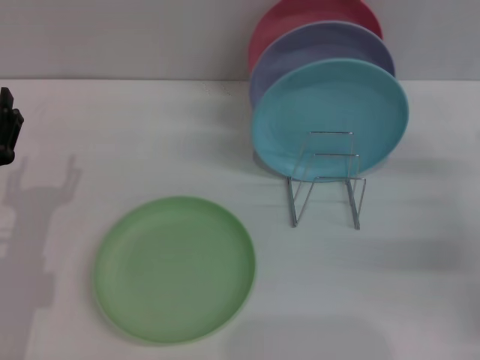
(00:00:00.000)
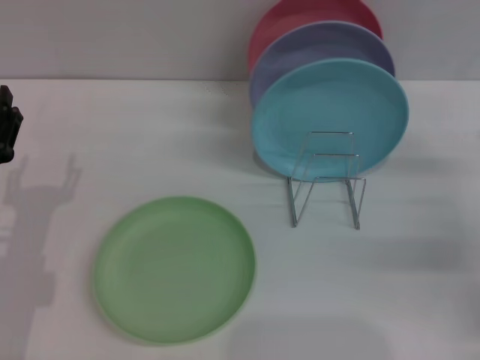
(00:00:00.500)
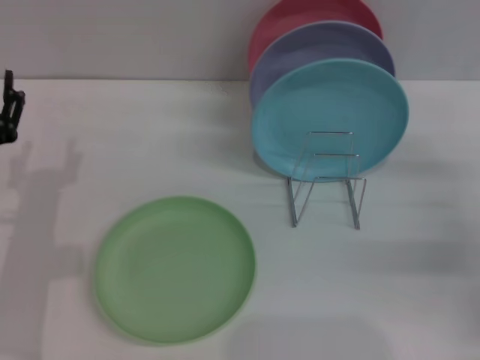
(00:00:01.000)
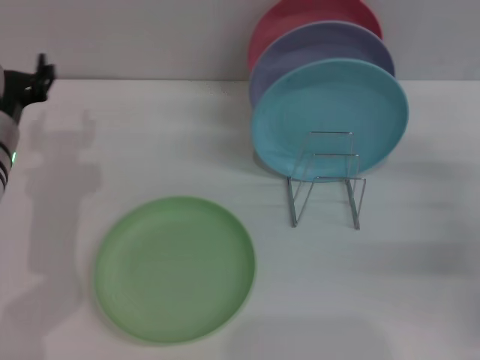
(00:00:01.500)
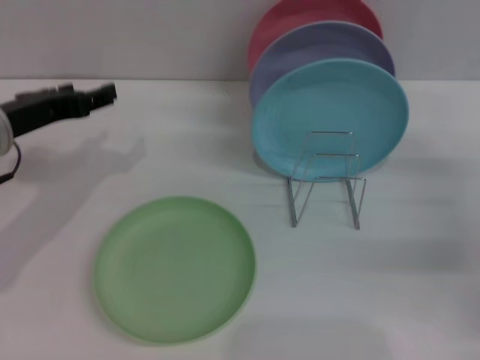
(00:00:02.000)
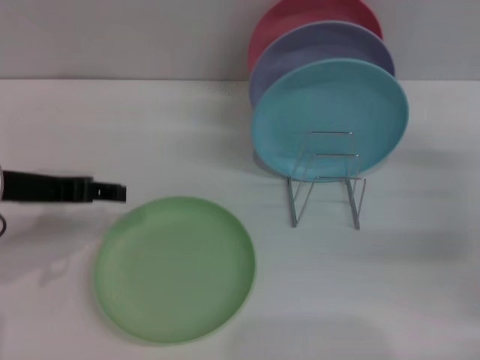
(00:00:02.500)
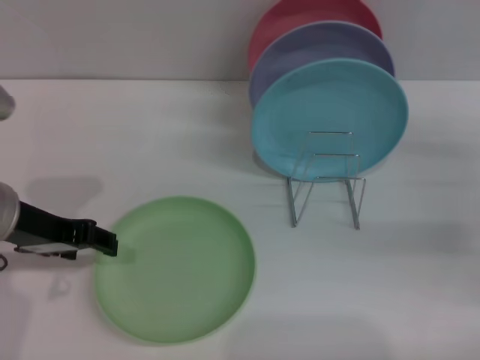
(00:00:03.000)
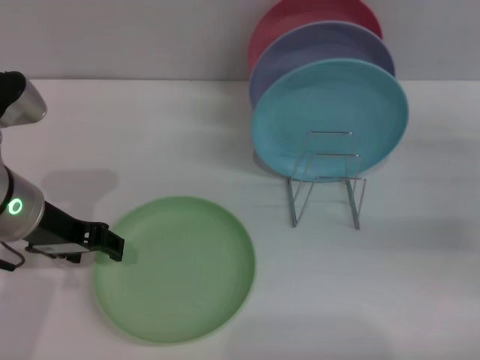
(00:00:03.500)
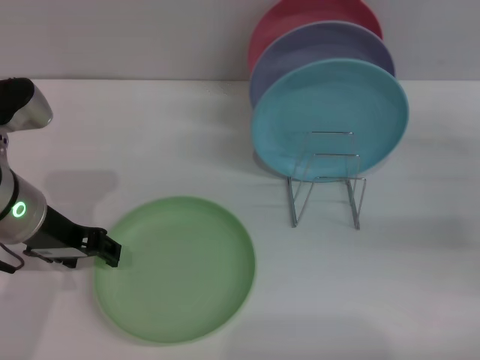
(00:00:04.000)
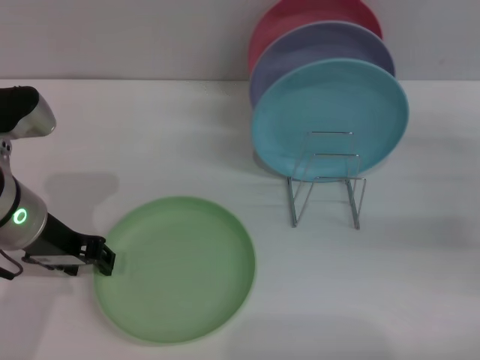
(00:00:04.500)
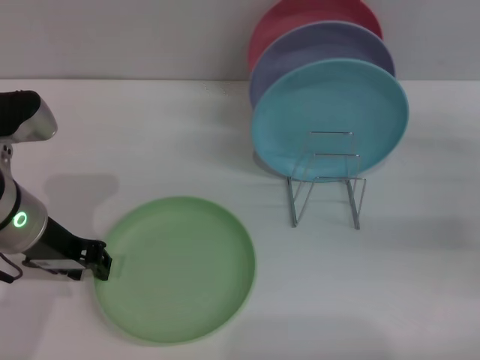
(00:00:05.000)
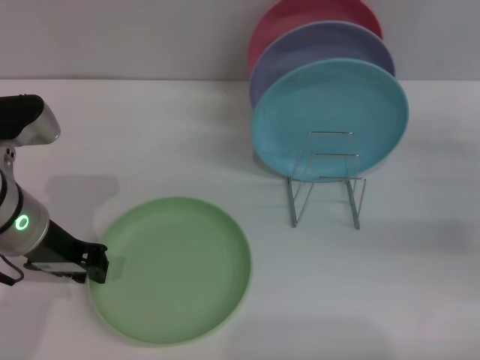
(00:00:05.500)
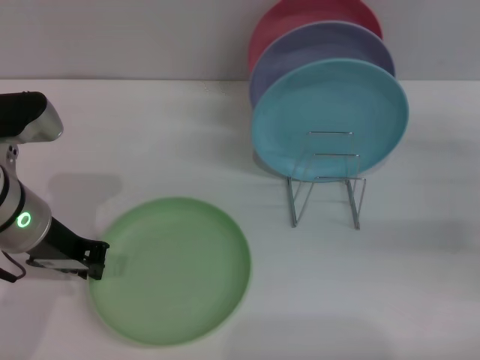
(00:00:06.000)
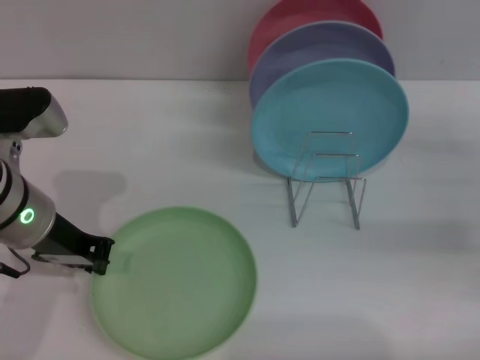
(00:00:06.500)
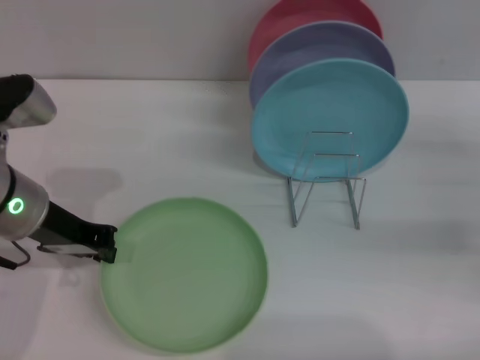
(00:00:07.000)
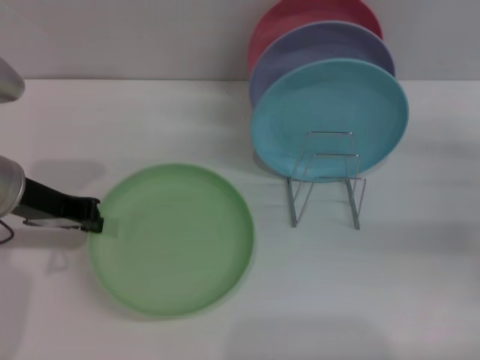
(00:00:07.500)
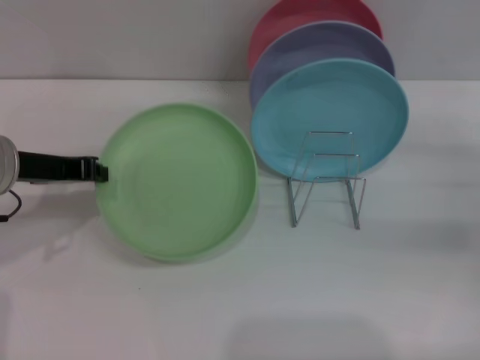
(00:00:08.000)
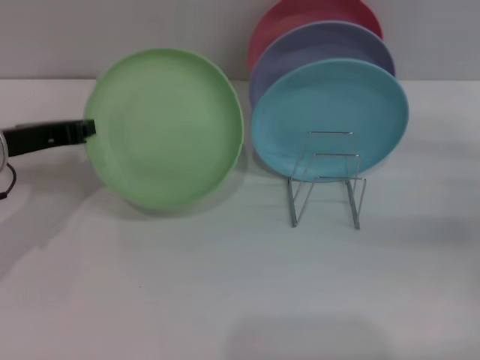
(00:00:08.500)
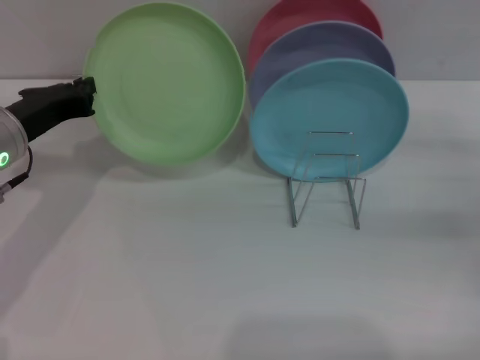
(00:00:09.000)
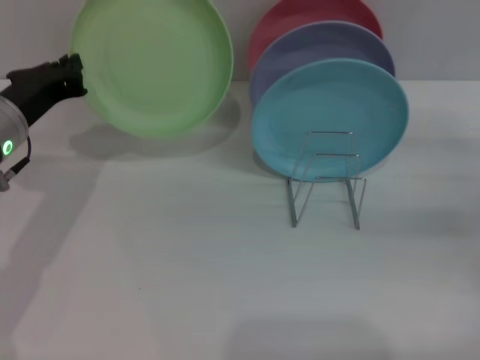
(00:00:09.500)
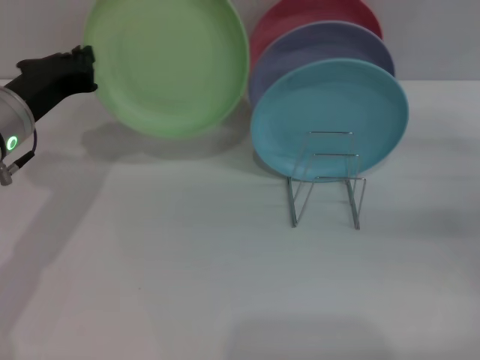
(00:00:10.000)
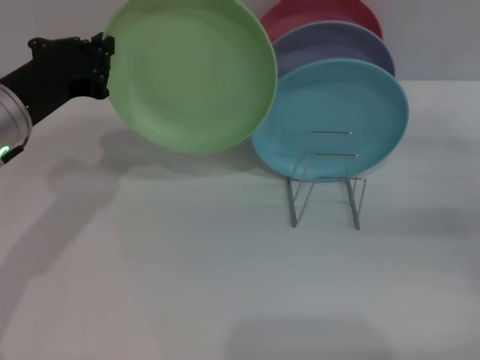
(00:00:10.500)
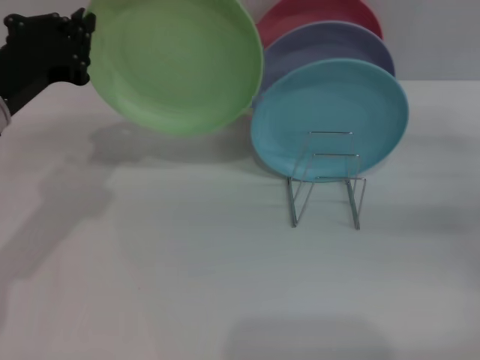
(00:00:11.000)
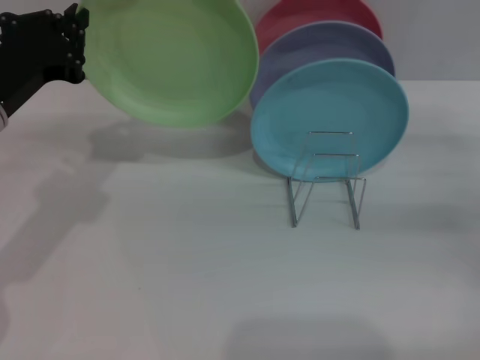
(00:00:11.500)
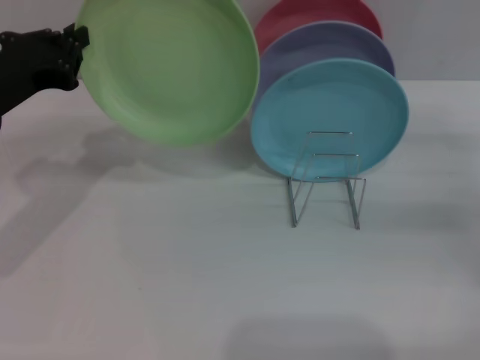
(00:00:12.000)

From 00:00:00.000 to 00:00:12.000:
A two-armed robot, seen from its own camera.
Task of the whole recording: Grip the plate with one hand, pass it to the other, then set it on the shelf.
Step, from 00:00:00.000 to 00:00:09.000: Pick up the plate with the left gripper.
From 00:00:00.000 to 00:00:02.000: The left gripper heads upward and forward, covering some 15 cm.
From 00:00:04.000 to 00:00:06.000: The left gripper closes.

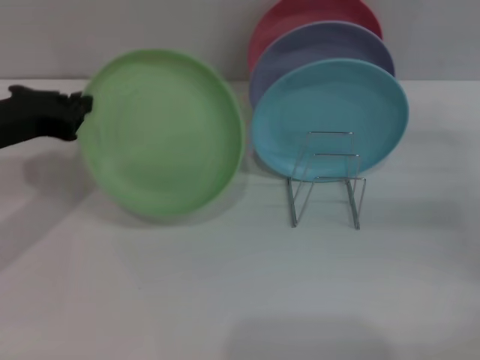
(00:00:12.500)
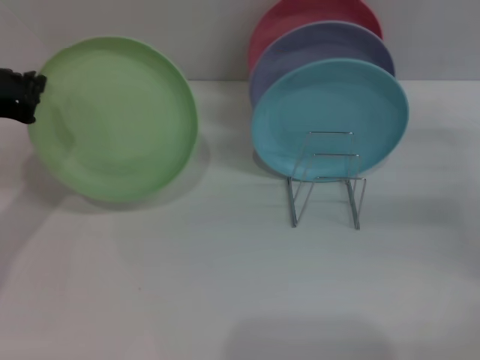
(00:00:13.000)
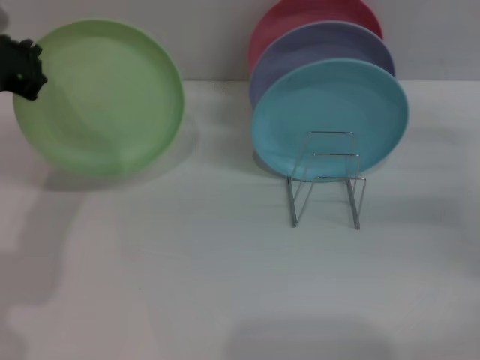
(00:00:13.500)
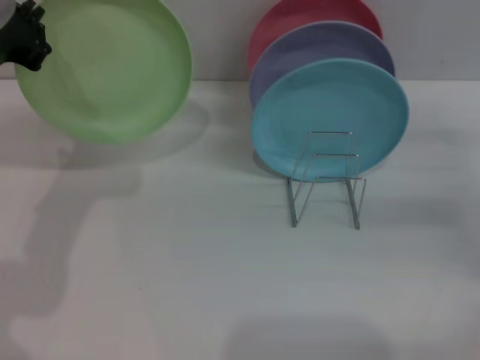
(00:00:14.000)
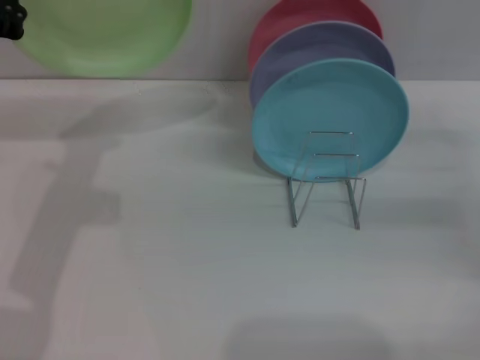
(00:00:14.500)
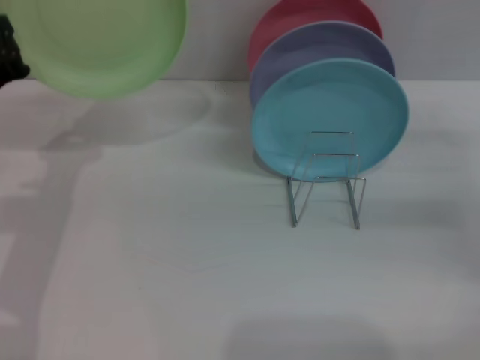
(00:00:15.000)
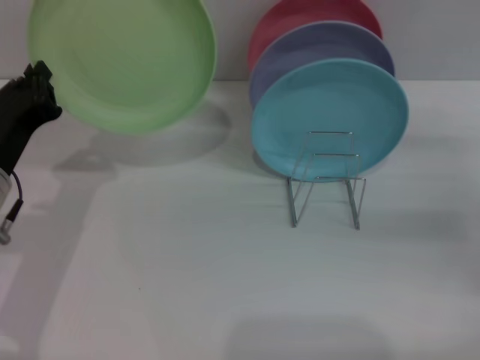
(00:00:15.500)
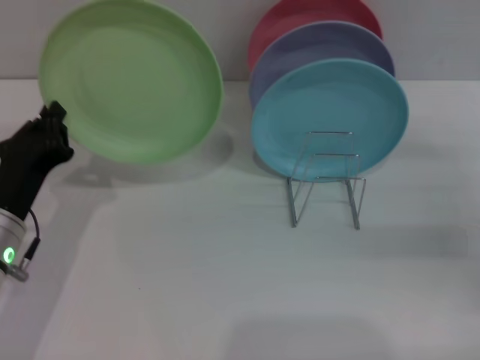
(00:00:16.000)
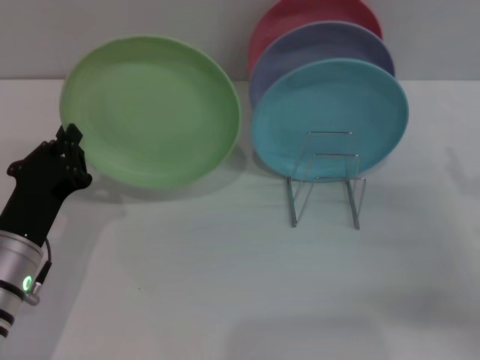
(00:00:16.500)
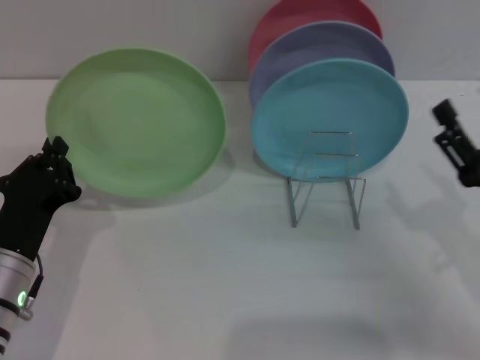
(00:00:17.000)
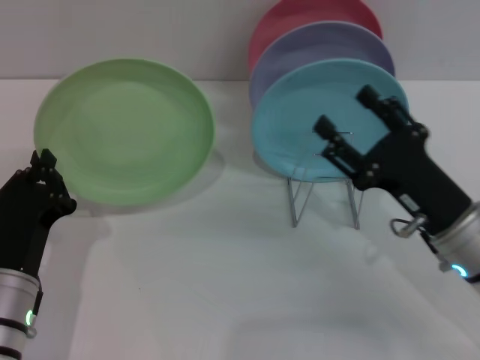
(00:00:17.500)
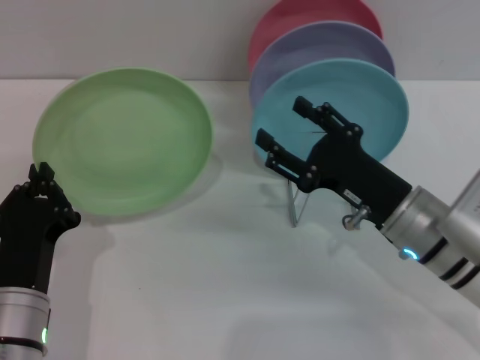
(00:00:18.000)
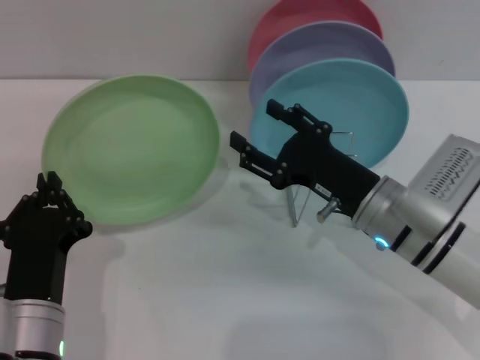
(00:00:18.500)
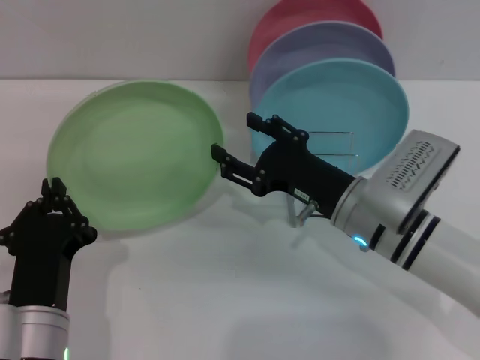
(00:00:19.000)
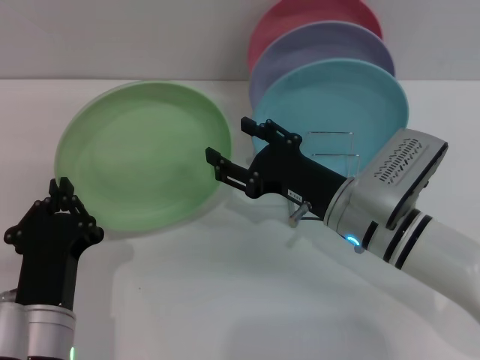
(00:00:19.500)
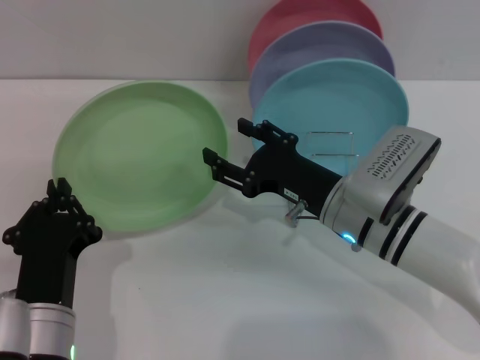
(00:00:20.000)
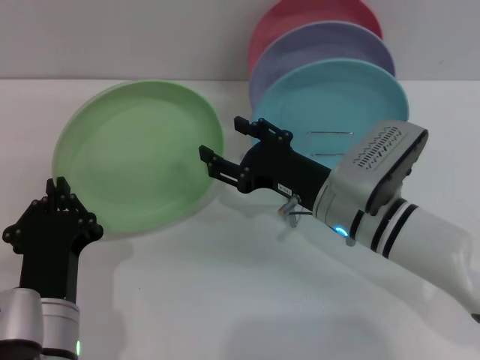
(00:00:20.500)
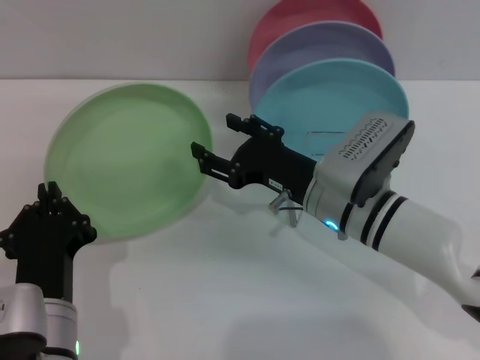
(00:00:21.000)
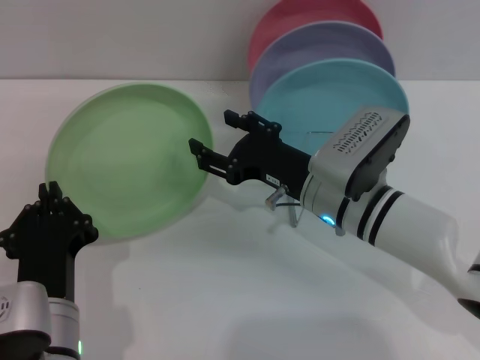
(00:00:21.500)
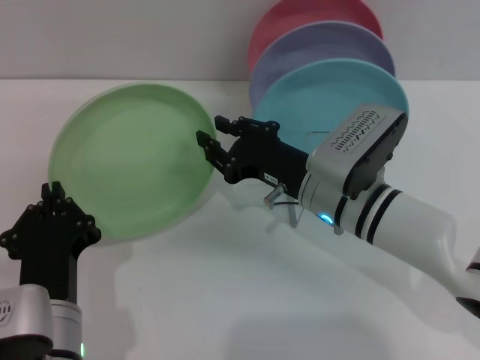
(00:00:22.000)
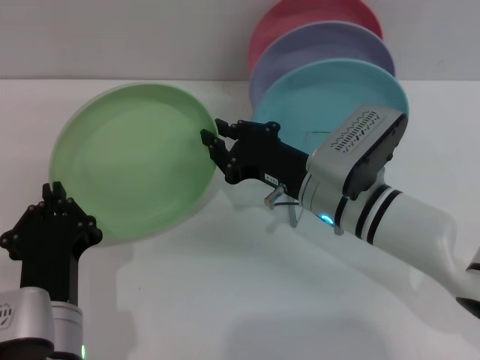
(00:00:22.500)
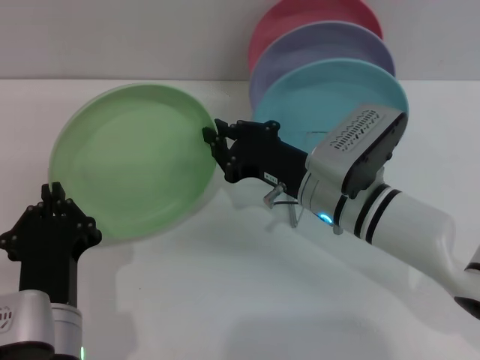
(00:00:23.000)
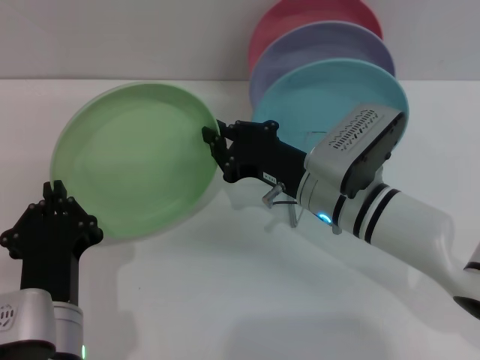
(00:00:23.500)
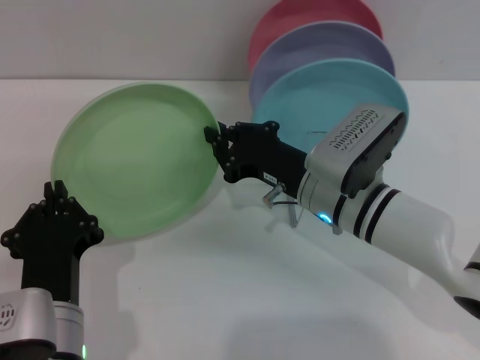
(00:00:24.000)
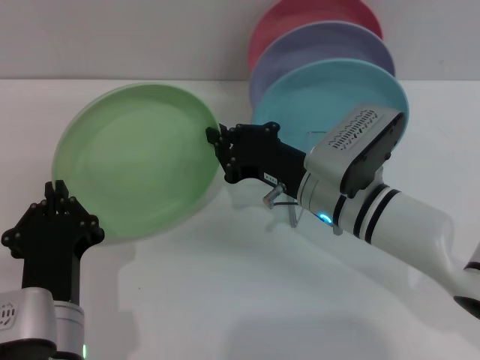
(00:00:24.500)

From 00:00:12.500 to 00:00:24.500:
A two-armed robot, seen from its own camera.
Task of the whole recording: Grip the plate with one hand, pass it to the other, then set it on the shelf.
From 00:00:12.500 to 00:00:14.500: The left gripper ends up roughly 5 cm from where it was.
From 00:00:14.500 to 00:00:16.500: The left gripper is displaced downward by approximately 15 cm; the right gripper goes roughly 10 cm backward.
From 00:00:16.500 to 00:00:18.500: The left gripper travels backward by some 5 cm; the right gripper travels to the left by some 15 cm.
From 00:00:18.500 to 00:00:20.500: The grippers move only a little.
From 00:00:20.500 to 00:00:22.500: The right gripper closes.
From 00:00:22.500 to 00:00:24.500: Both grippers stay about where they are.

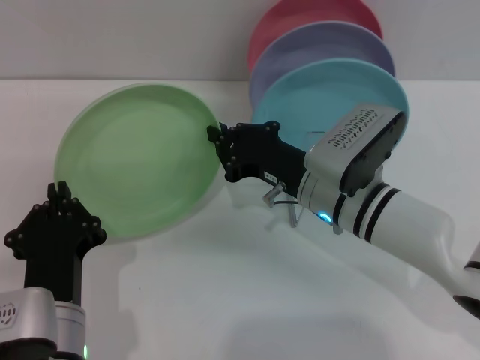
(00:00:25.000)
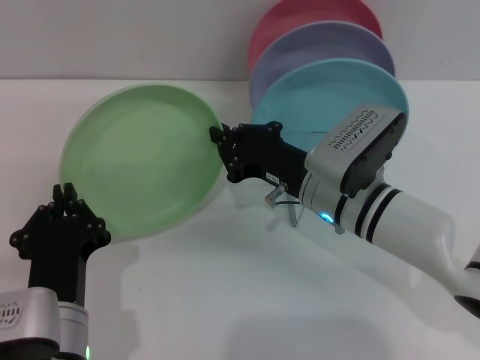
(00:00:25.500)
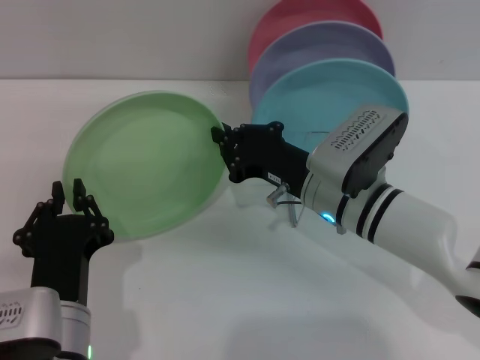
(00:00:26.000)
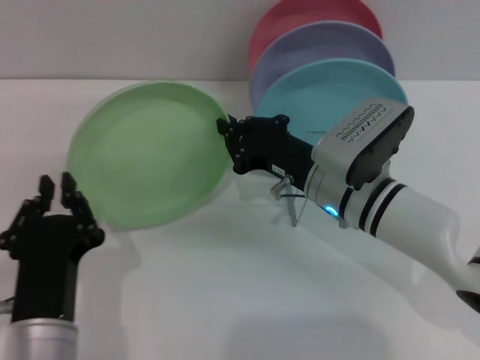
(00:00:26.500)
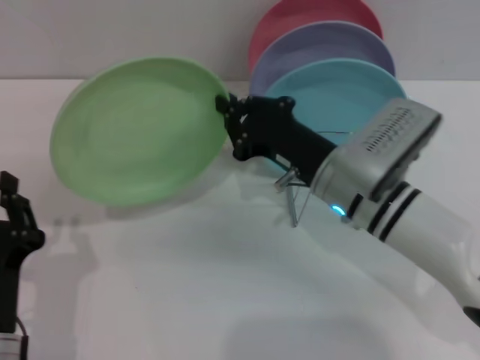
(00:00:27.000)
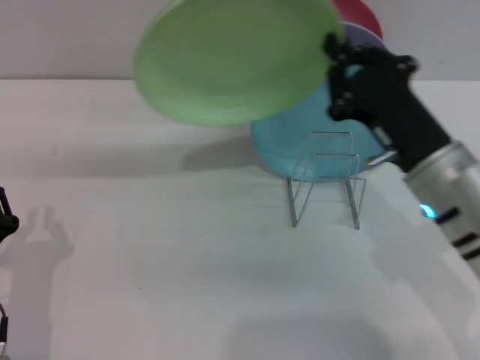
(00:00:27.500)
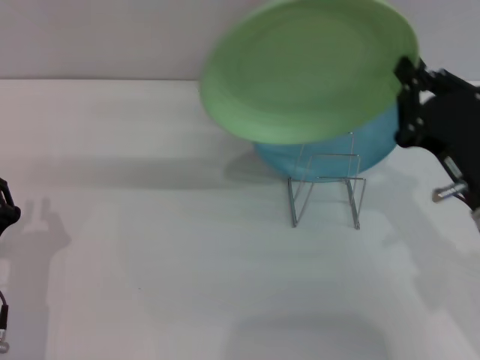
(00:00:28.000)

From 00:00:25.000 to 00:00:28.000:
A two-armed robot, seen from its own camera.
Task of the whole recording: Grip the plate with one hand, pass it to the other, then set it on the shelf.
Step, from 00:00:25.000 to 00:00:27.000: Pass the plate from the left gripper to the right gripper.
From 00:00:25.000 to 00:00:26.500: The grippers make only small movements.
From 00:00:26.500 to 00:00:28.000: The left gripper shifts roughly 10 cm to the left. Meanwhile the right gripper heads backward and to the right, covering approximately 15 cm.
